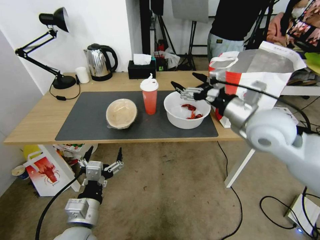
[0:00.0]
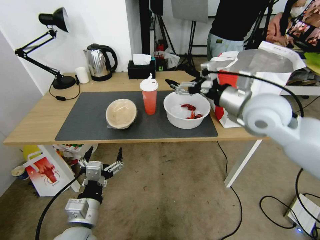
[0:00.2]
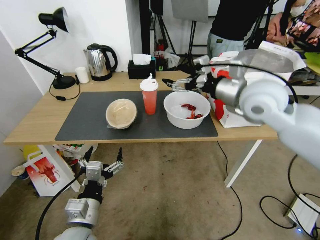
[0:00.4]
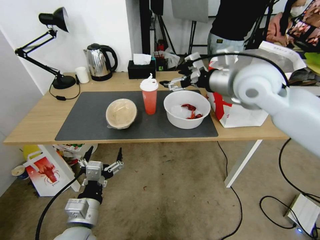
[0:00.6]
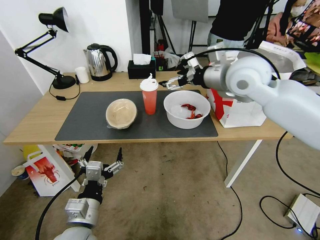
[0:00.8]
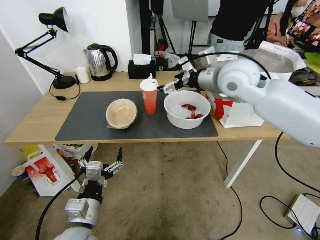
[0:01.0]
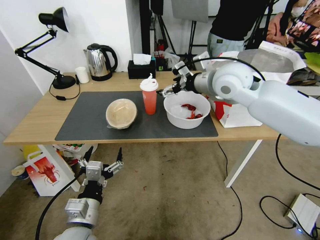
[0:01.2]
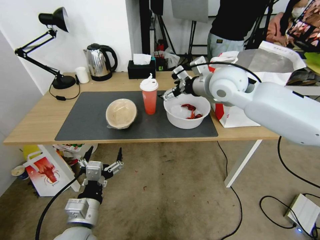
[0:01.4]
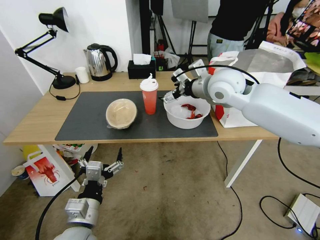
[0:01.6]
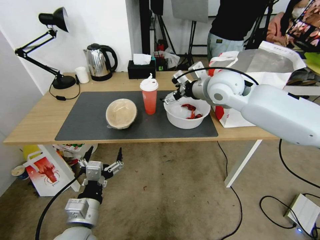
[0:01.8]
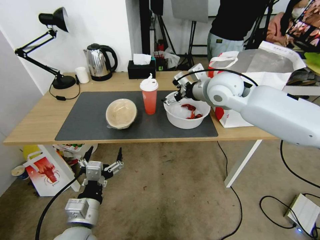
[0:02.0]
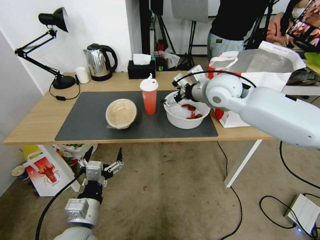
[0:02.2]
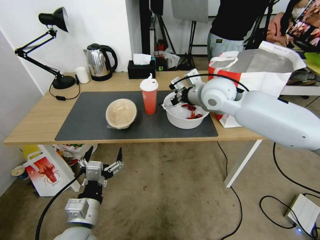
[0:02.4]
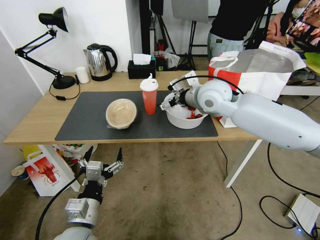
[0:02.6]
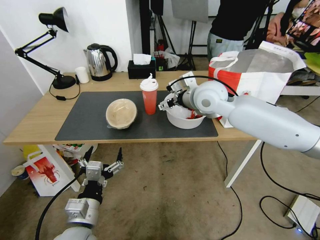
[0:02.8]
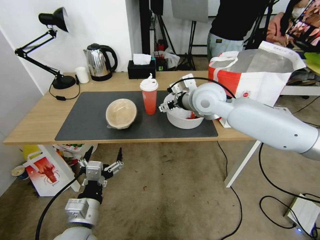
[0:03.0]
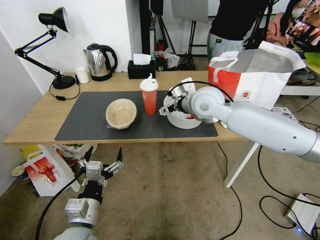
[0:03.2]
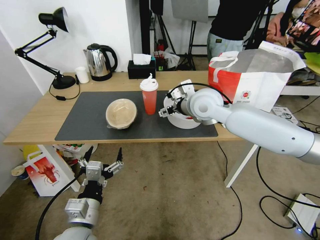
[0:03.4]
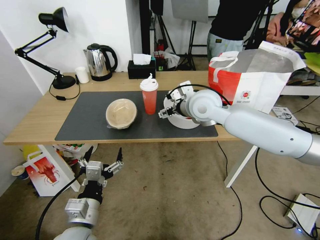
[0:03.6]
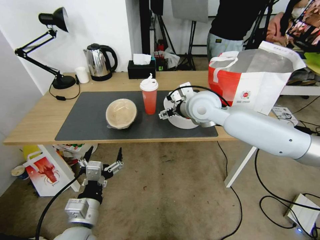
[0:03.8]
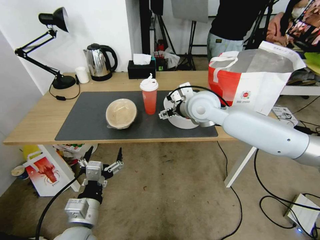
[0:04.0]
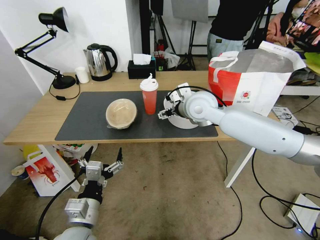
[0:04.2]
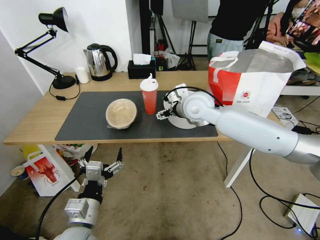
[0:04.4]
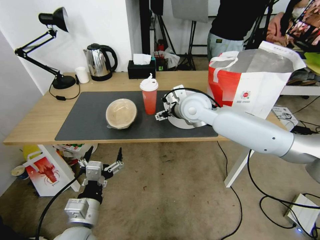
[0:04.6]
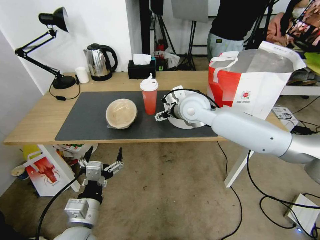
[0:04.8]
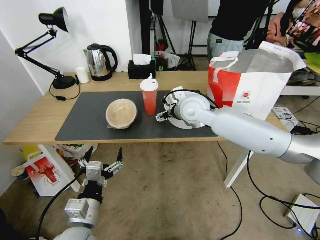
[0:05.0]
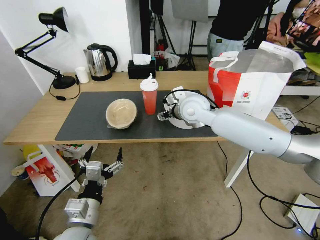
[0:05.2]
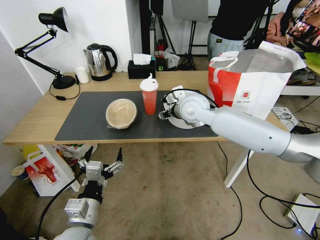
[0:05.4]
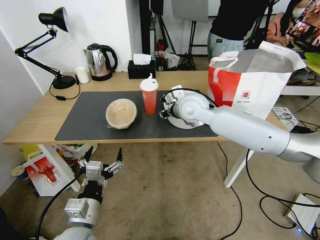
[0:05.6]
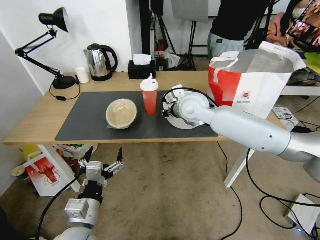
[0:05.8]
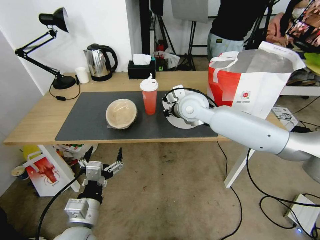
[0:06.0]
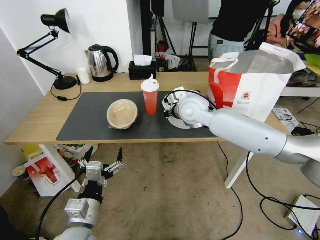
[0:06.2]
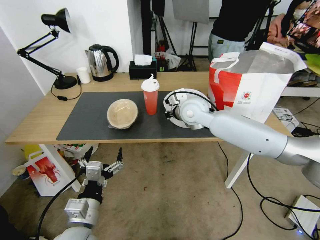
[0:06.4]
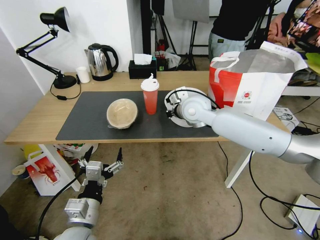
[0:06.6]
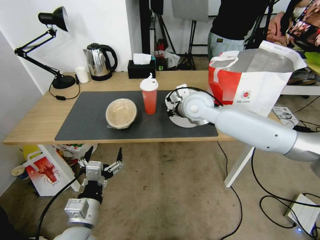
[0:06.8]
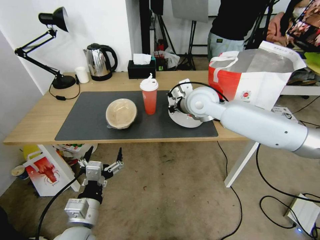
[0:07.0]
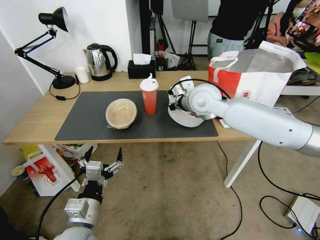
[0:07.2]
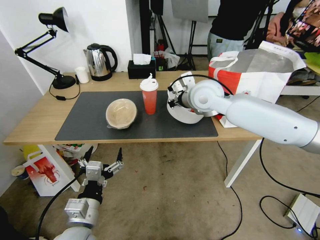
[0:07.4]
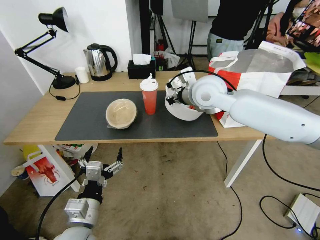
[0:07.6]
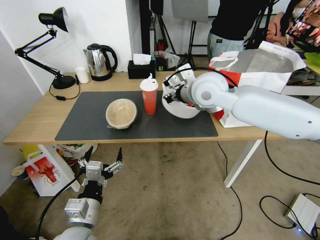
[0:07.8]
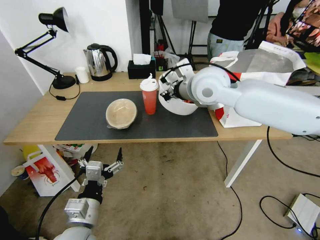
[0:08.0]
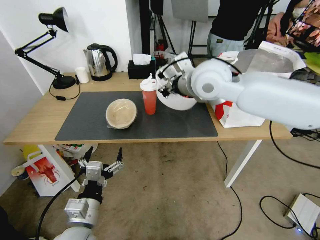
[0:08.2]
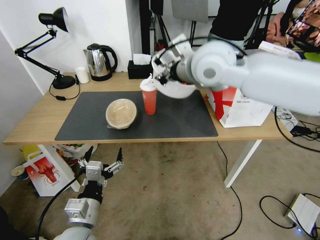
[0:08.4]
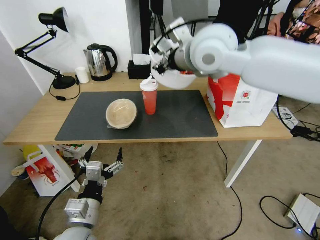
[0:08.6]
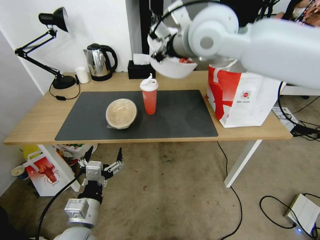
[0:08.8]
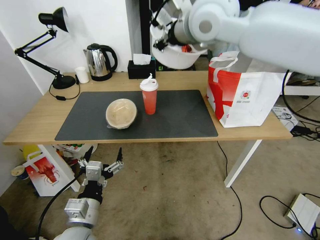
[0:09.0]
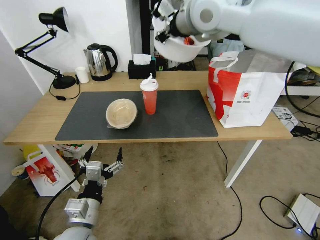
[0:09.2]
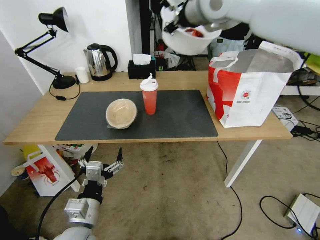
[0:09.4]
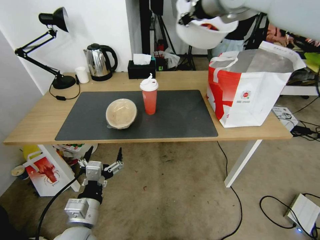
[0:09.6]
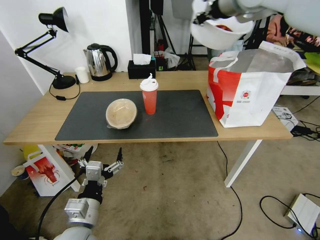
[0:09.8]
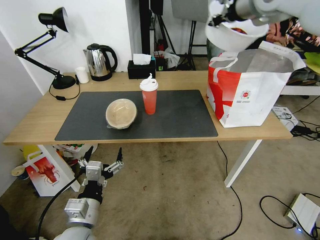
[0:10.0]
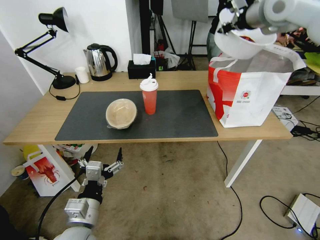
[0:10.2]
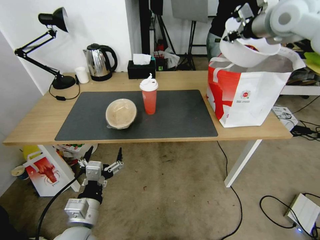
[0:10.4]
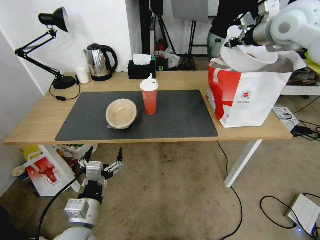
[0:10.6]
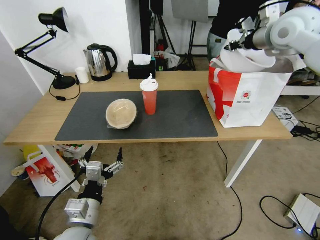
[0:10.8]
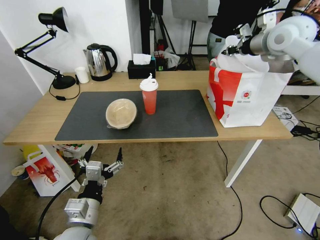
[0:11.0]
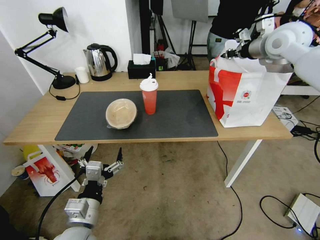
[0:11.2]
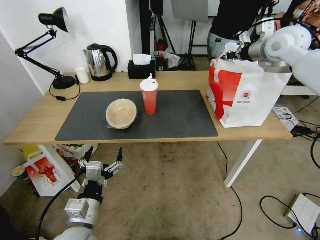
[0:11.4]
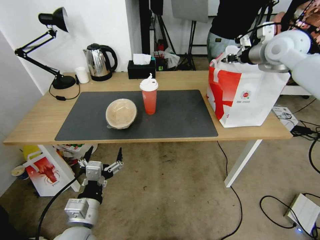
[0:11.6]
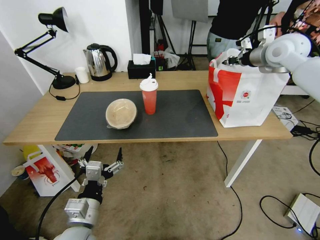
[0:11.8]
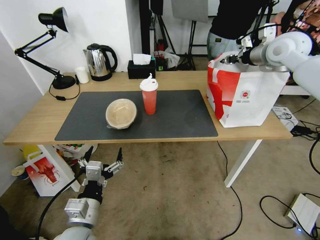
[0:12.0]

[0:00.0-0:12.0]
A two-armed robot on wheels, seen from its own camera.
Task of the whole recording: Pick up the trash from the table and place it into the takeout bag.
0:00.0 to 0:01.6: The right gripper moves forward and to the left, about 15 cm.
0:01.6 to 0:03.0: The right gripper ends up roughly 5 cm from where it was.
0:03.0 to 0:04.4: There are only small adjustments of the grippers.
0:04.4 to 0:06.0: The right gripper closes up.
0:06.0 to 0:07.6: The right gripper moves upward, approximately 10 cm.
0:07.6 to 0:09.0: The right gripper travels upward by about 20 cm.
0:09.0 to 0:10.4: The right gripper shifts about 20 cm to the right.
0:10.4 to 0:12.0: The right gripper moves downward and to the right, approximately 10 cm.

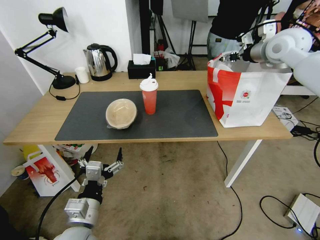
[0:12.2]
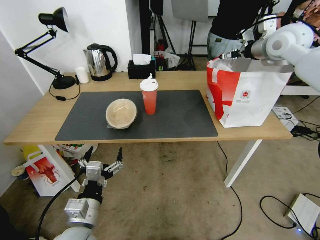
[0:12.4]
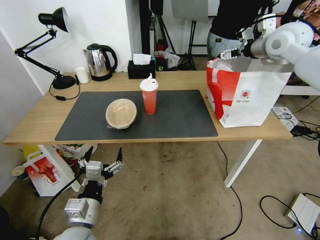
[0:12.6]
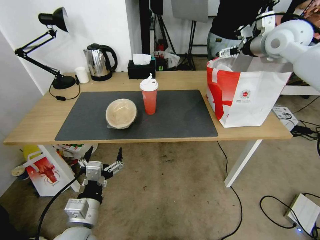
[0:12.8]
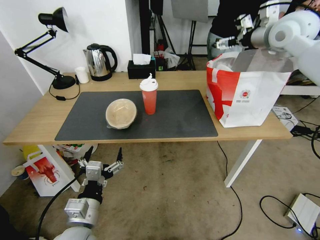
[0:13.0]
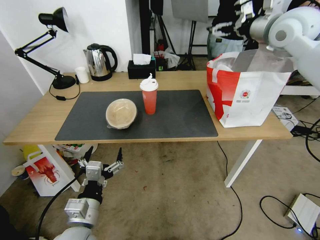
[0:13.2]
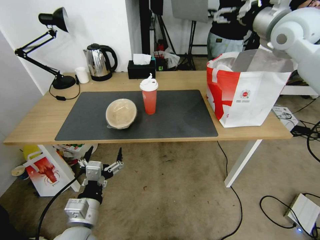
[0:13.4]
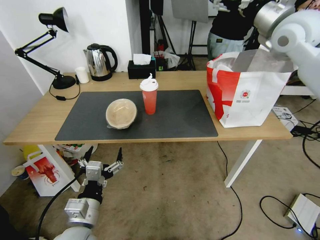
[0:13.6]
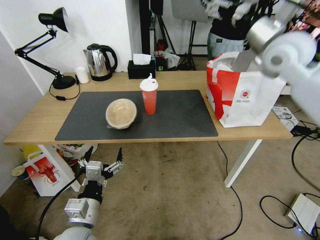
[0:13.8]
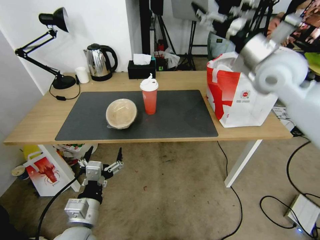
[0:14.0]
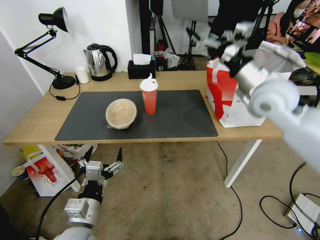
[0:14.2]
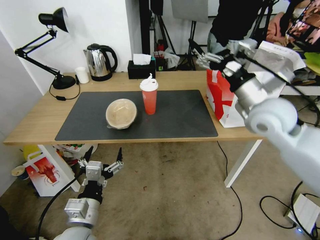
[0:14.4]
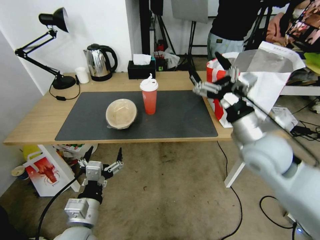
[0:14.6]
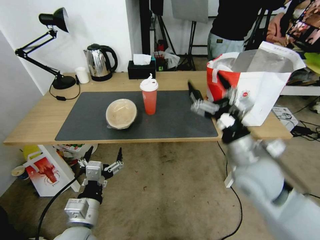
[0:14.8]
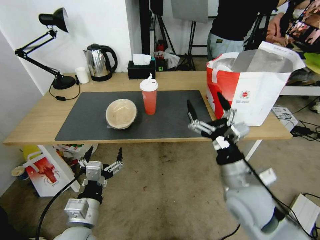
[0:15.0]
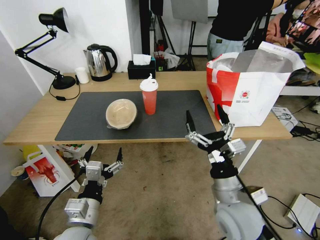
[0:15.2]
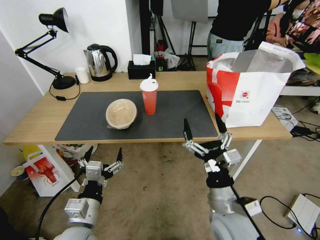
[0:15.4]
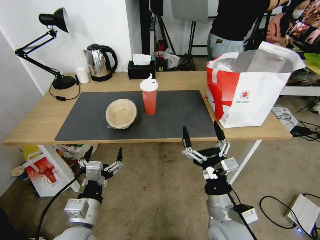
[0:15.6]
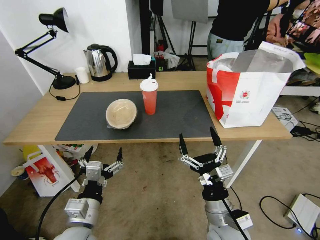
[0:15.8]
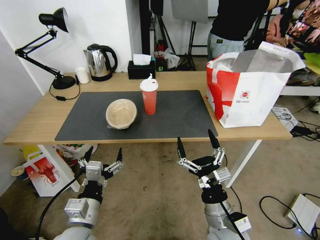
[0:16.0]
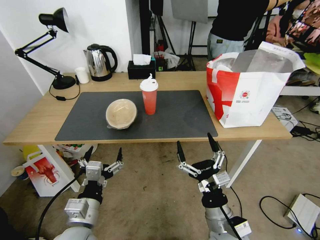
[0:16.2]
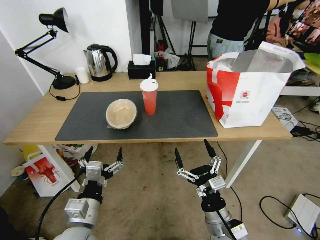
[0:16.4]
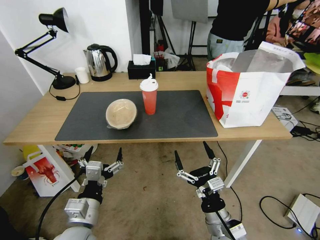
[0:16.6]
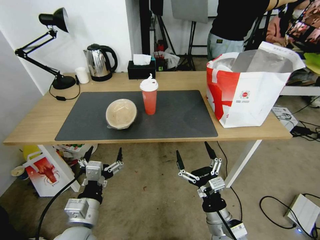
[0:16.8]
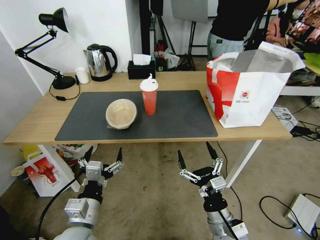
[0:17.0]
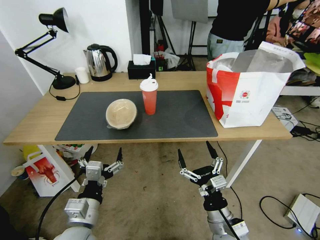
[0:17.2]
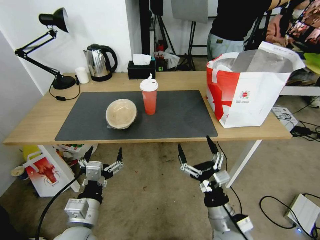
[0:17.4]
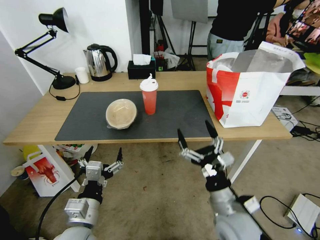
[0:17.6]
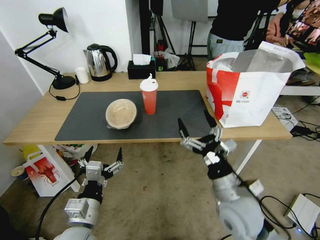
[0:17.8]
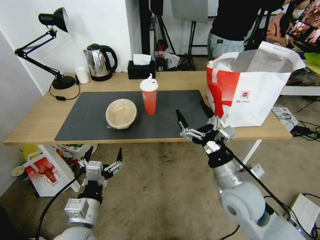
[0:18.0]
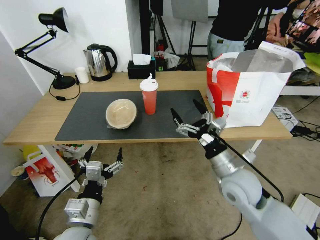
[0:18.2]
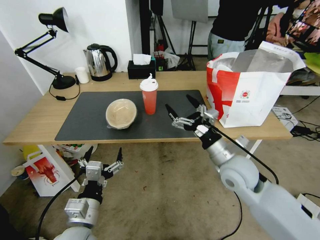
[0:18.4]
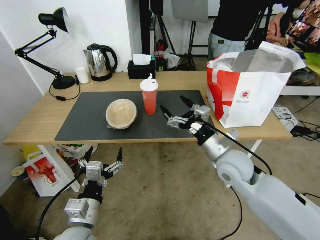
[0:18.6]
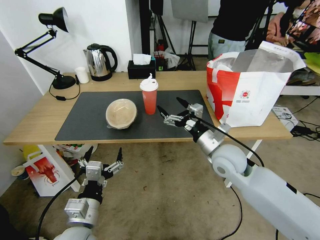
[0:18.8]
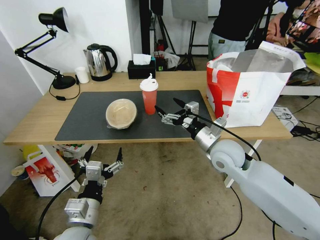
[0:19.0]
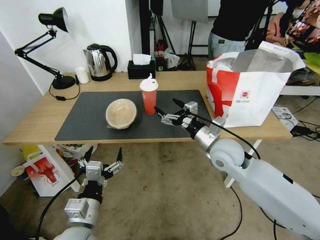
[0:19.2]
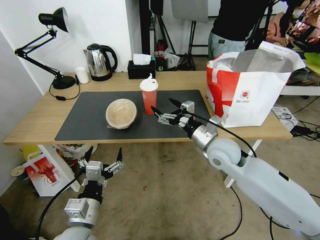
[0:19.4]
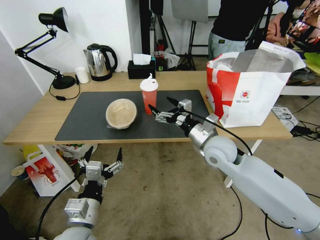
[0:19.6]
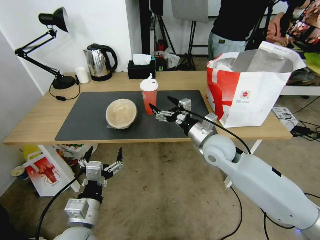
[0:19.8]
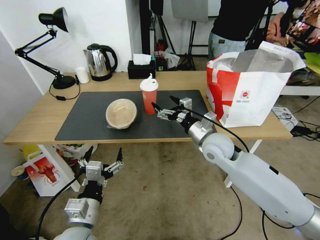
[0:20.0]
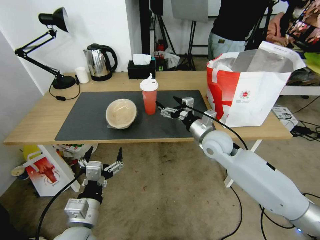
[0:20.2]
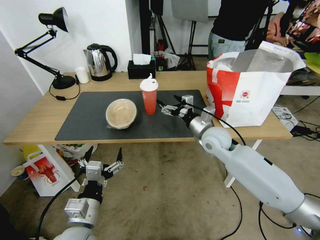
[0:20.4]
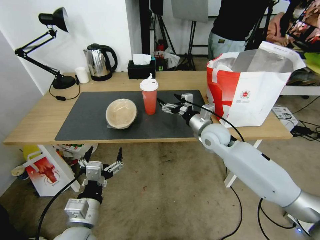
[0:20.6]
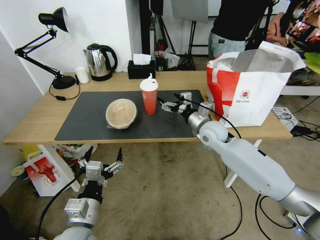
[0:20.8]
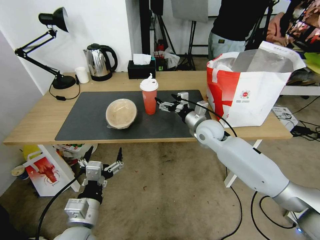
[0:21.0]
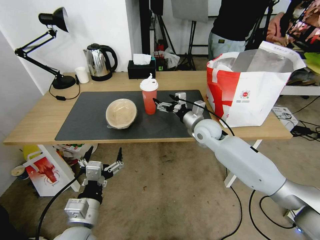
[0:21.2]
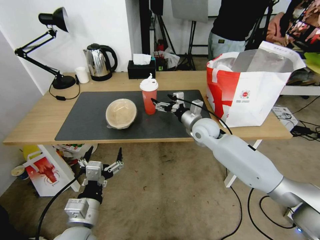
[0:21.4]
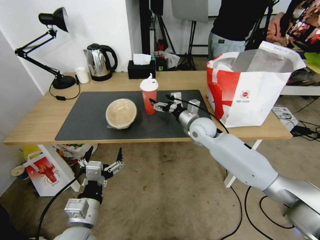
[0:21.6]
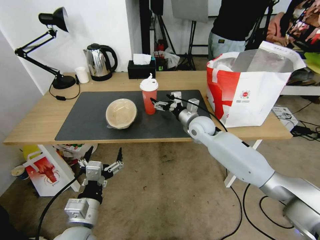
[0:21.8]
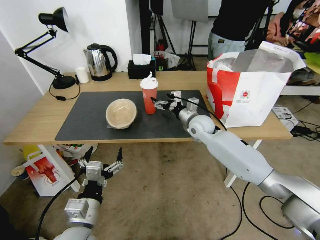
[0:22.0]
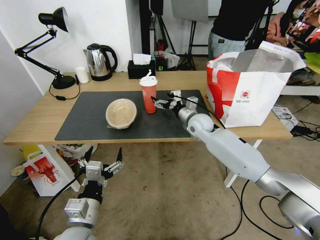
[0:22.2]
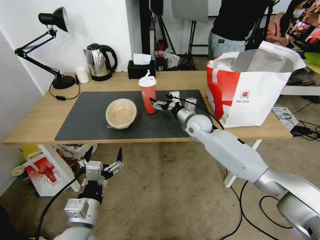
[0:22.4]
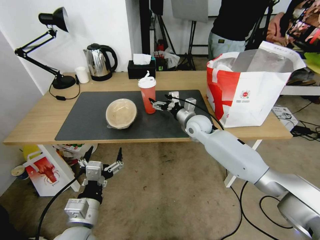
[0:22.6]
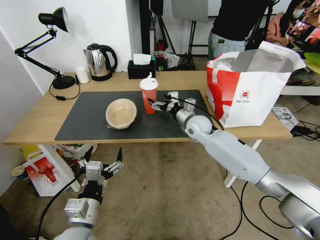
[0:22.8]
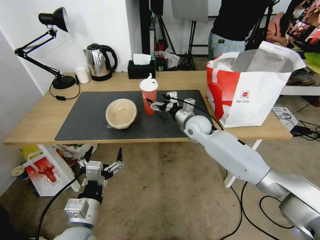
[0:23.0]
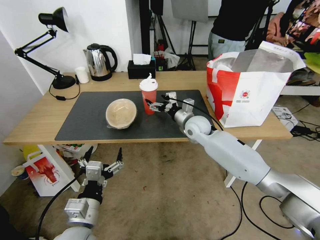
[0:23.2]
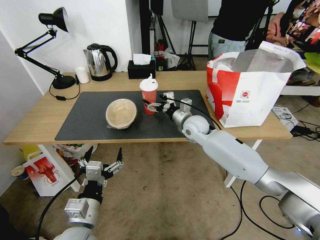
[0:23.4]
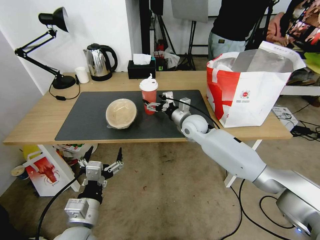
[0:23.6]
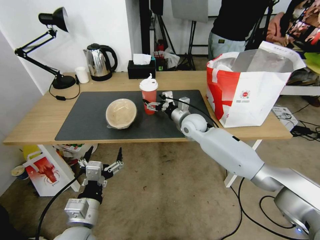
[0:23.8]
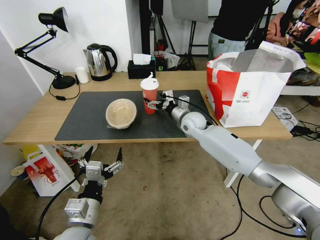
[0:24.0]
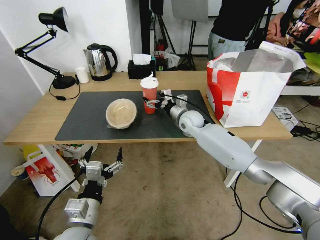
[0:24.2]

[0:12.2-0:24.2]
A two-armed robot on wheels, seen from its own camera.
Task of the whole recording: Pick up the trash from the table and place it into the takeout bag.
0:12.2 to 0:13.8: The right gripper shifts some 10 cm backward and to the left, and opens up.
0:13.8 to 0:15.2: The right gripper goes roughly 40 cm downward and backward.
0:15.2 to 0:16.6: The right gripper heads downward and backward, covering some 10 cm.
0:16.6 to 0:18.2: The right gripper moves forward and upward, approximately 15 cm.
0:18.2 to 0:19.8: The right gripper travels forward by about 10 cm.
0:19.8 to 0:21.2: The right gripper goes approximately 10 cm forward.
0:21.2 to 0:22.6: There are only small adjustments of the grippers.
0:22.6 to 0:24.2: The grippers stay close to where they were, moving slightly.
